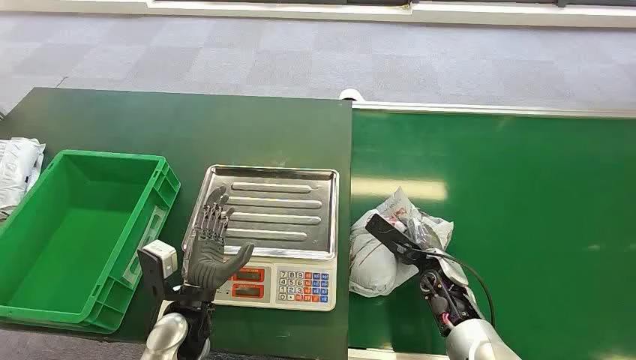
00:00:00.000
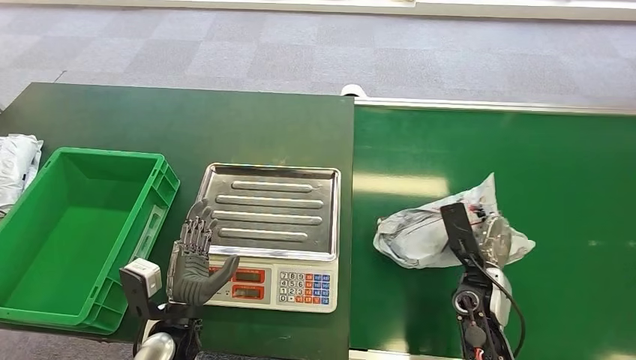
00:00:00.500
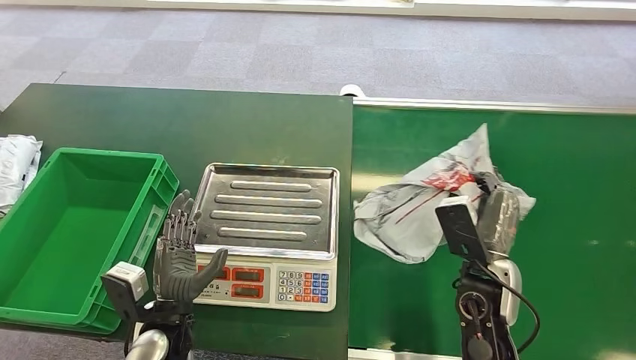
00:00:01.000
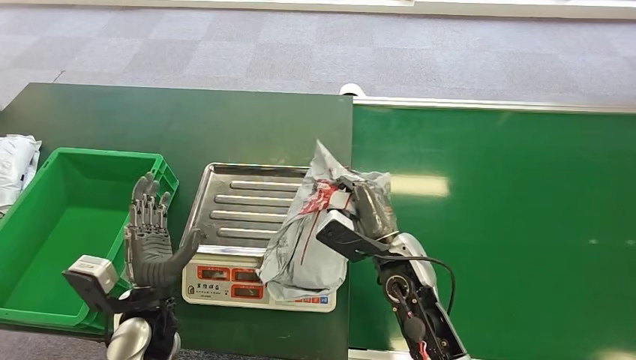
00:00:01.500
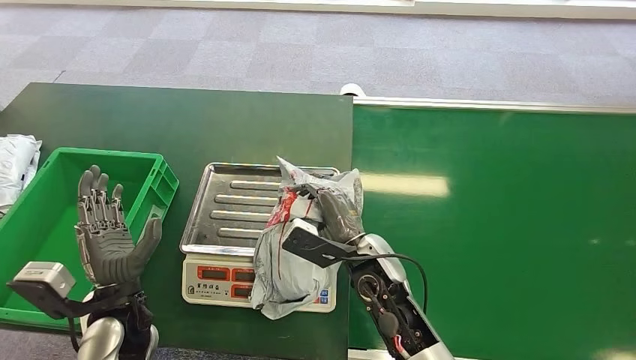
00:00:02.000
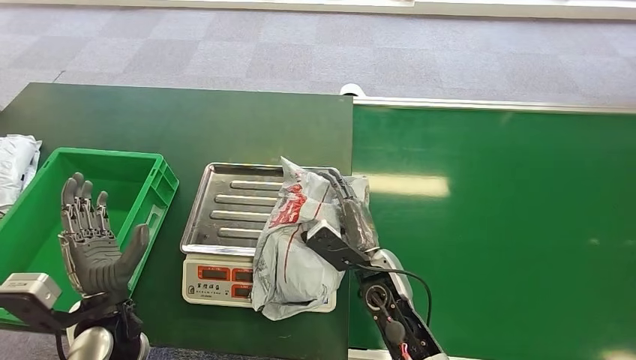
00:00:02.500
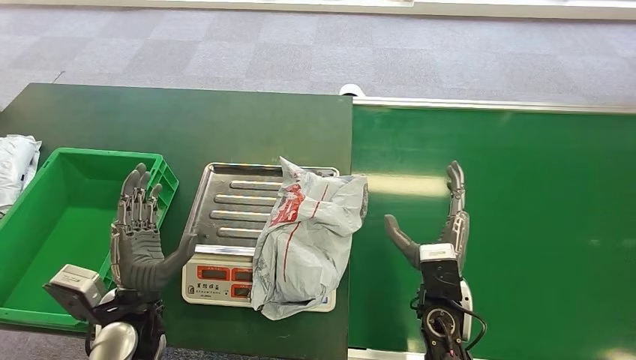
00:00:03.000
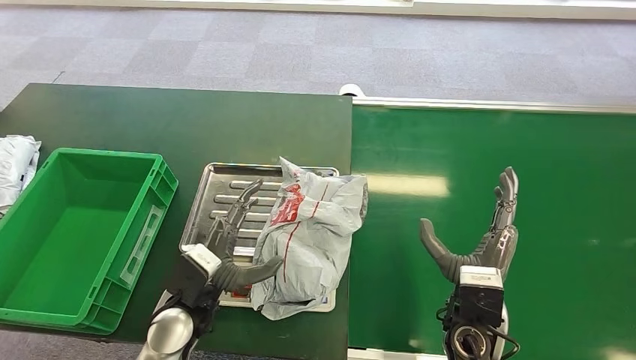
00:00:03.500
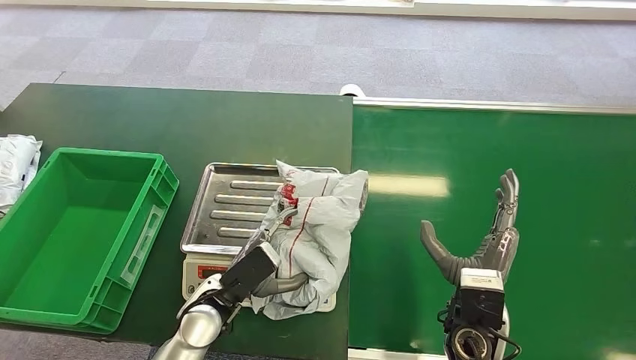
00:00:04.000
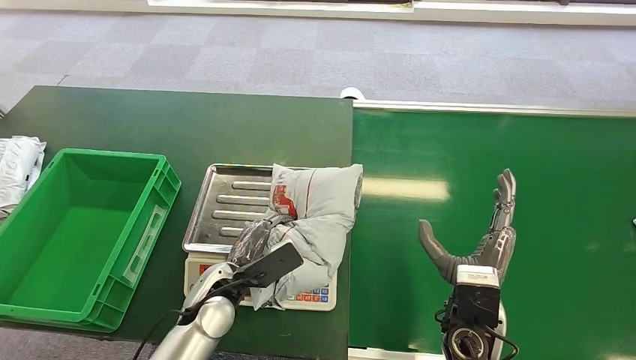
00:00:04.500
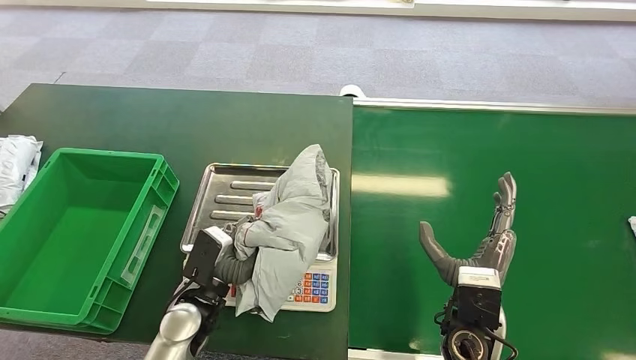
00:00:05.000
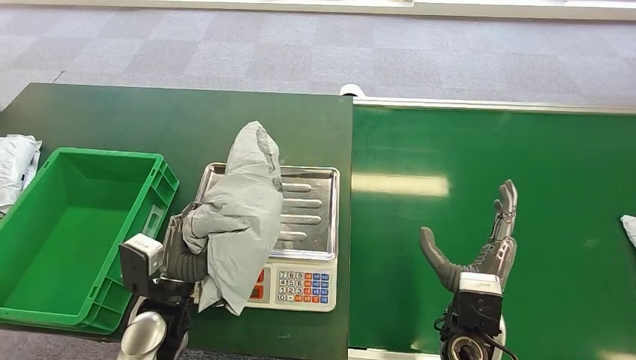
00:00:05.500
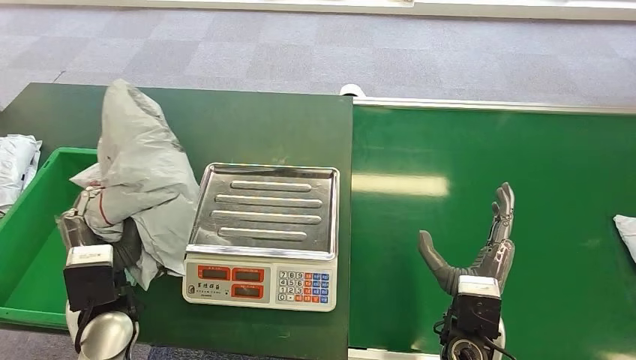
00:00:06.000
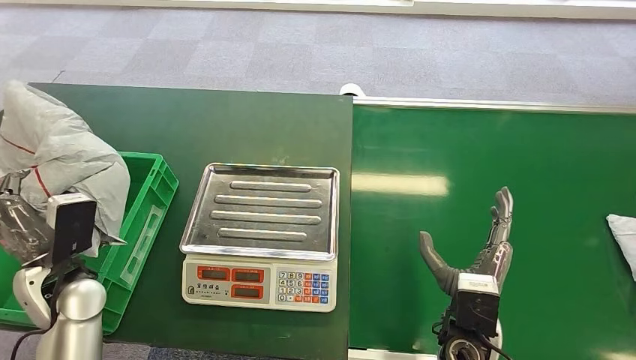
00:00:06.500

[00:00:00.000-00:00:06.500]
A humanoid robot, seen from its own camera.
Step, 00:00:00.000 to 00:00:00.500: Pick up the package from the conveyor belt.
Step, 00:00:05.000 to 00:00:05.500: Pick up the package from the inbound machine.
